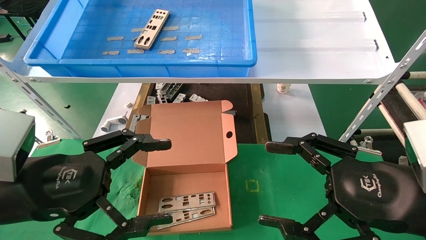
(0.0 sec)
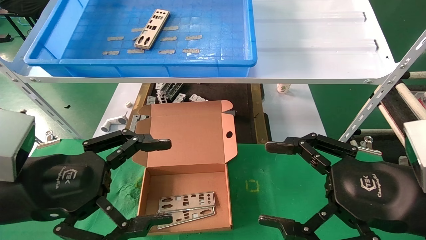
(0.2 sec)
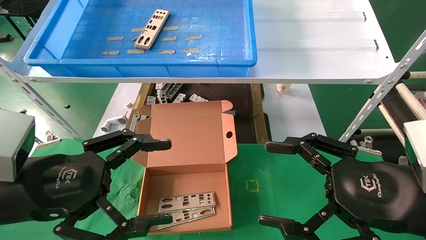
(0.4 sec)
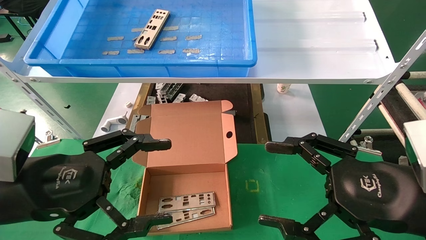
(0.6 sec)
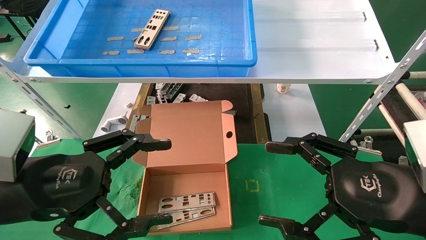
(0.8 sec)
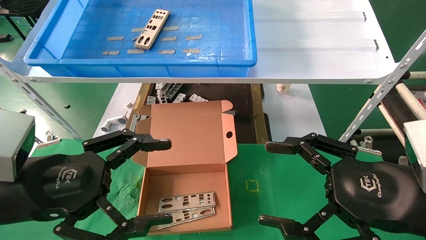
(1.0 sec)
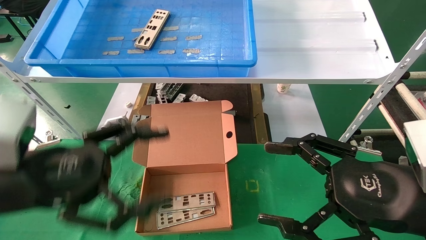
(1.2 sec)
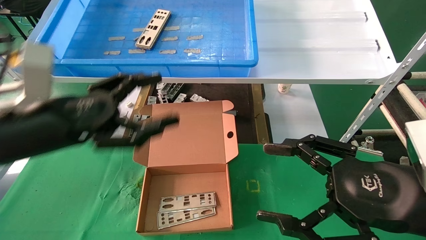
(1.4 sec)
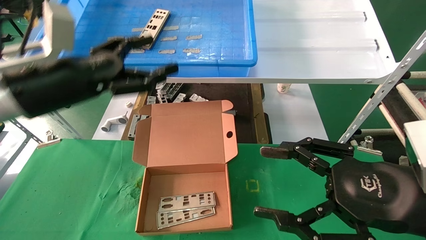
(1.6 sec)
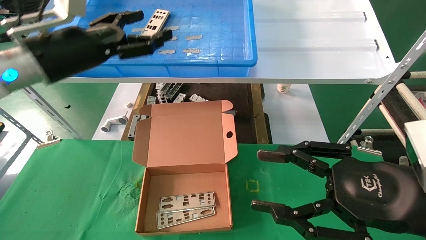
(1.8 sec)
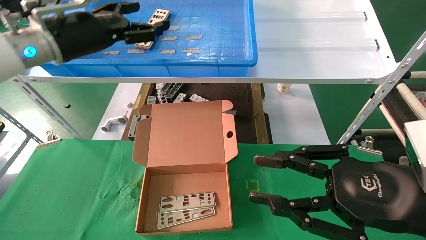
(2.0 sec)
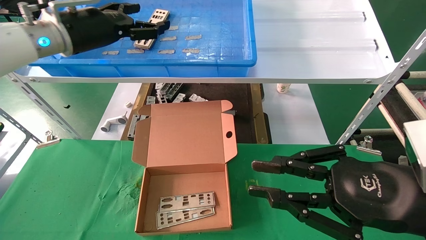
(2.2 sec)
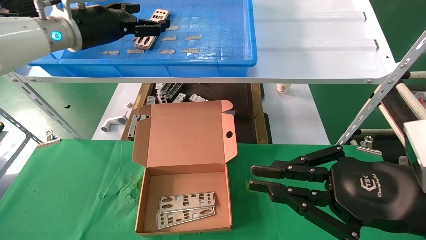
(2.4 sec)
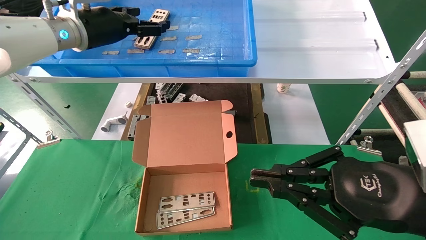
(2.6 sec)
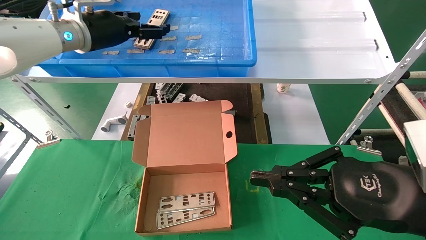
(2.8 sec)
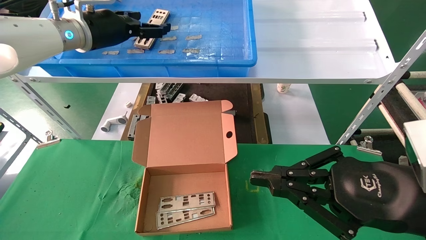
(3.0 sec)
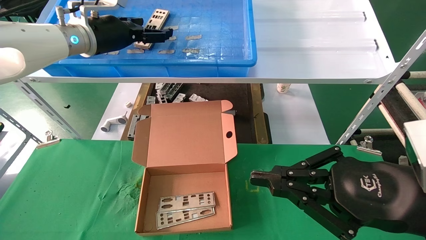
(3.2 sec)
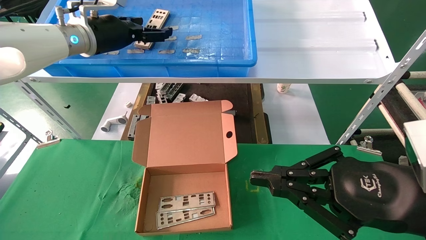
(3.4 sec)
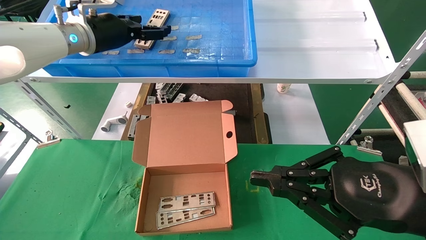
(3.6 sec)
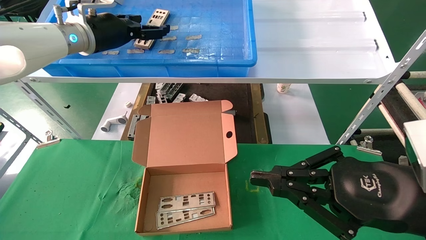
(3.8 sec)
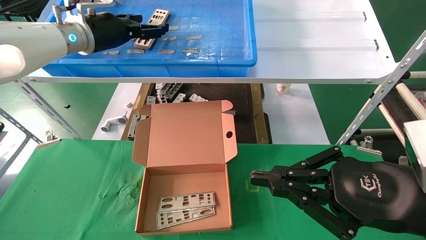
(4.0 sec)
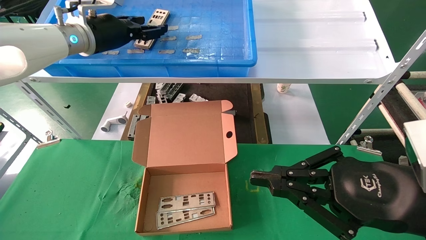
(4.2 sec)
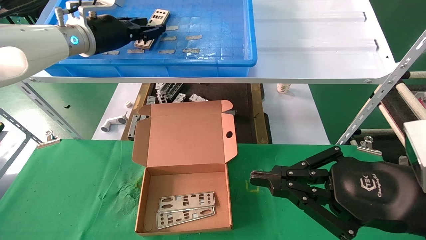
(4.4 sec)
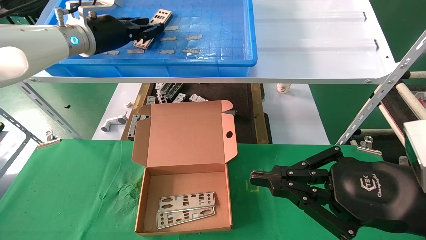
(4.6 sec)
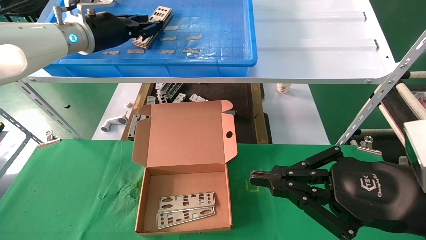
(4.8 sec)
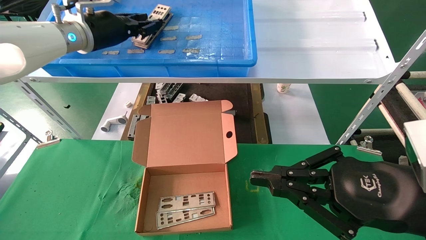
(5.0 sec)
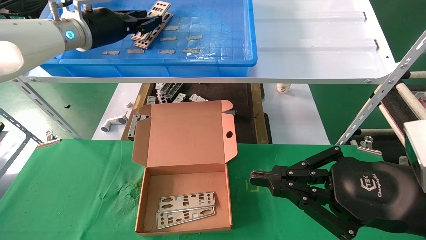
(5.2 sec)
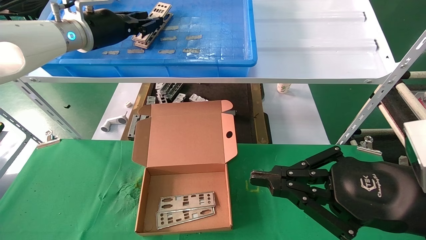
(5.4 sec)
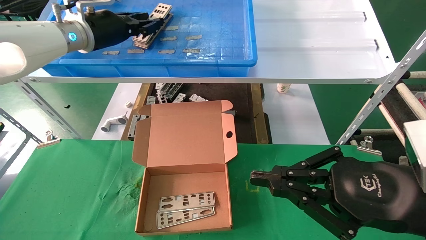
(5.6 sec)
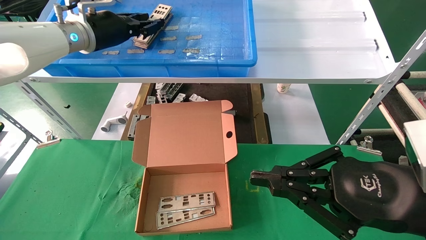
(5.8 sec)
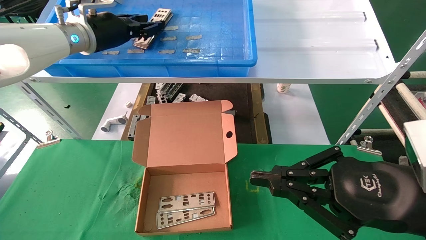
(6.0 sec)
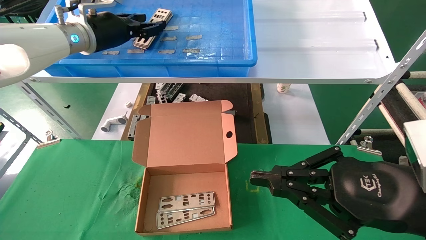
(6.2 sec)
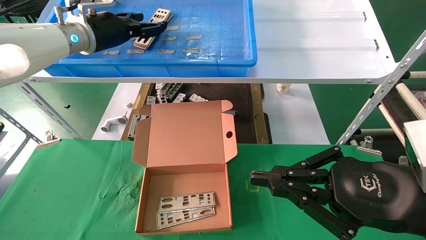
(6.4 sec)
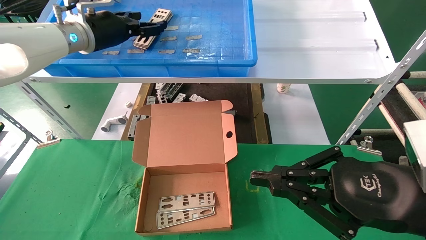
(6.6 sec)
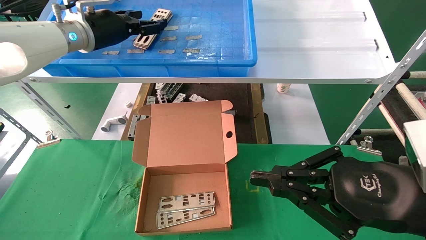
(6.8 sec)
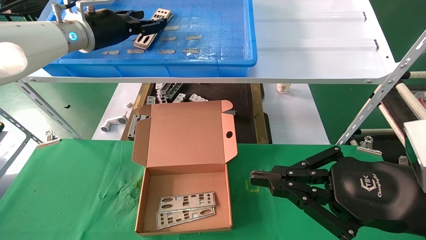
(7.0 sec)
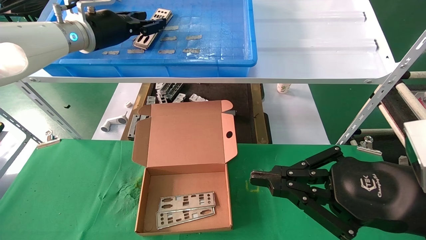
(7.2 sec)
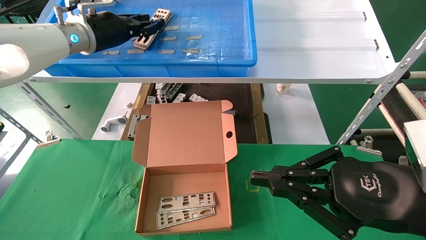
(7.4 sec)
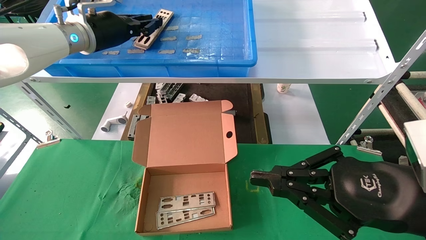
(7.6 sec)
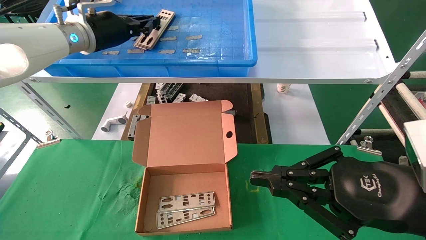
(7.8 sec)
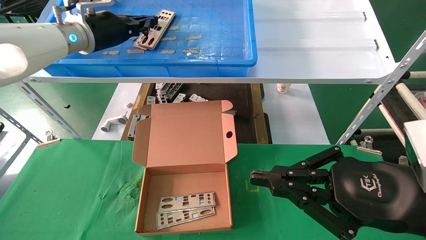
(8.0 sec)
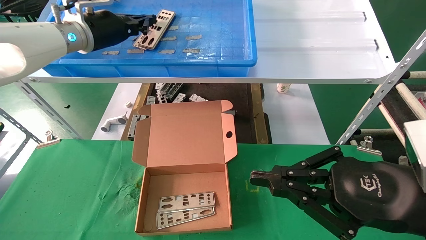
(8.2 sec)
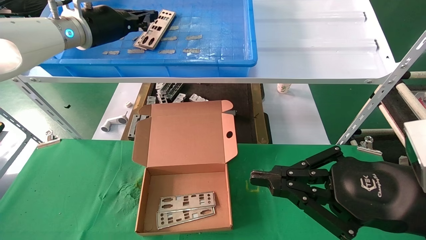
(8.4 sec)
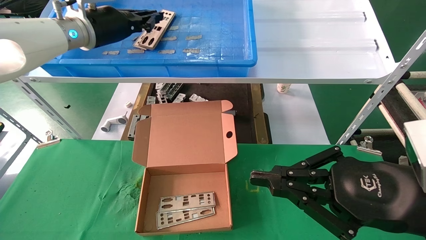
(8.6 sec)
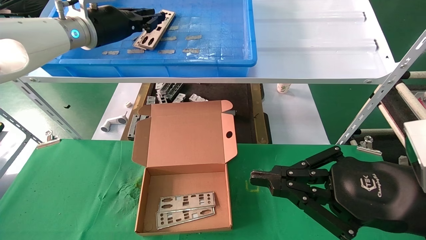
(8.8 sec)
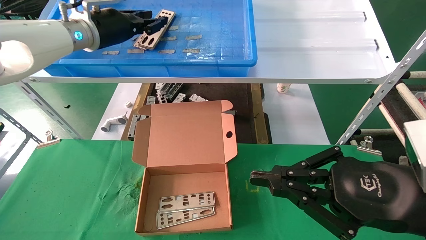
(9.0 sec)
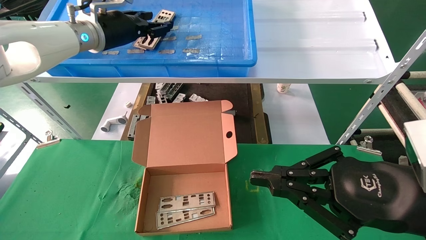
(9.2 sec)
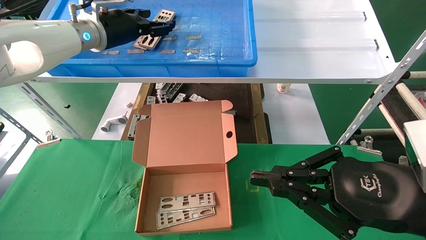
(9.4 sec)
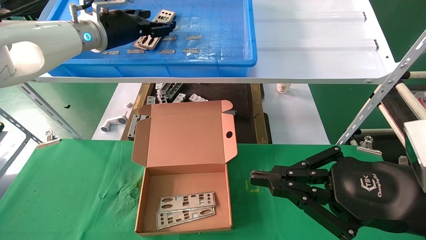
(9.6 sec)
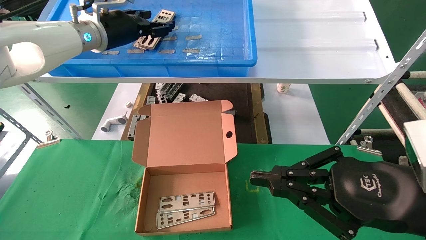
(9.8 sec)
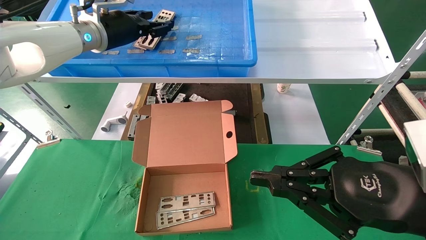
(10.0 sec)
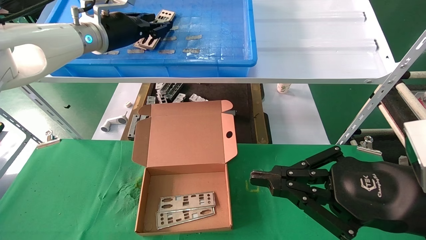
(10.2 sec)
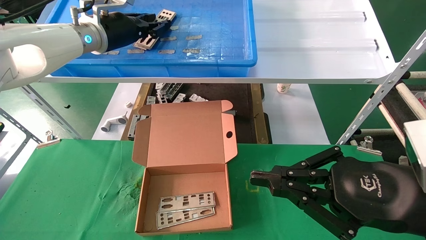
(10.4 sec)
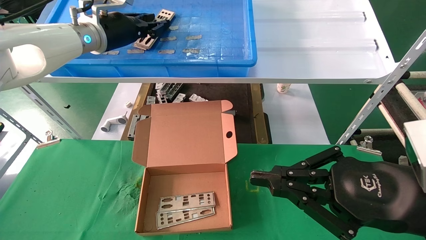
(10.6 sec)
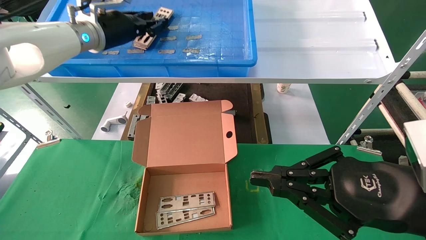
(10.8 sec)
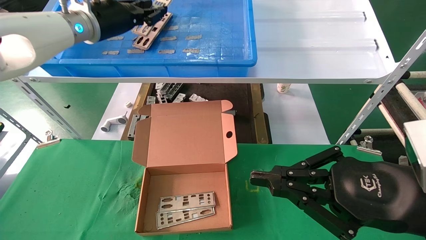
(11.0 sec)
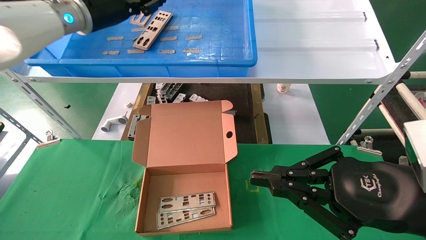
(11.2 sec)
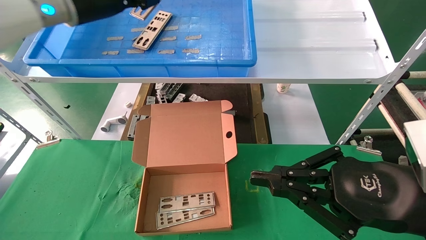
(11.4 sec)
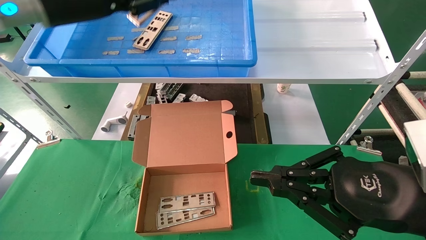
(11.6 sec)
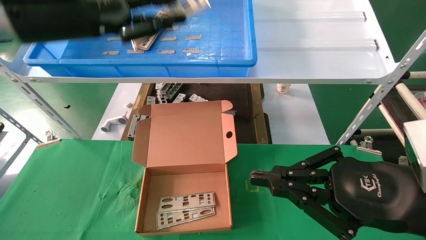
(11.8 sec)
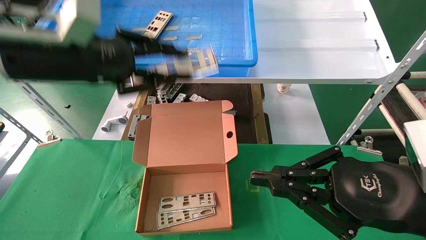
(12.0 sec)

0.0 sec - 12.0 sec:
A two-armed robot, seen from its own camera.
Task of the whole recording: pick up the parts on the tray and put them in the cardboard box.
Step, 1.4 sec - 11.0 sec: Pick up the IO bracket from the container box.
0.0 sec - 1.6 sec: The left gripper moves forward and upward, approximately 15 cm.
1.6 sec - 3.0 sec: The left gripper goes approximately 15 cm forward and upward; the right gripper closes.
3.0 sec - 4.4 sec: The left gripper closes.
4.4 sec - 6.0 sec: Neither gripper changes place.
6.0 sec - 7.6 sec: The left gripper opens, then closes once more.
7.6 sec - 9.0 sec: Both grippers stay about where they are.
9.0 sec - 10.4 sec: Neither gripper changes place.
10.4 sec - 12.0 sec: The left gripper moves backward, approximately 15 cm.

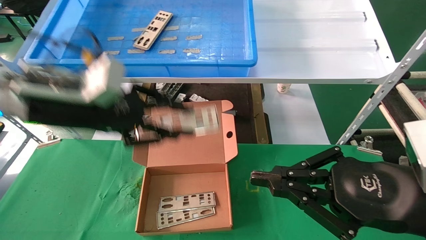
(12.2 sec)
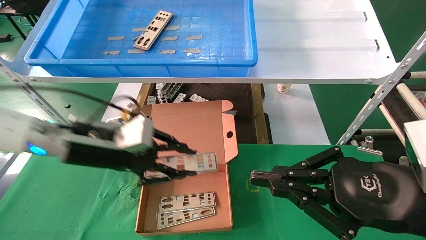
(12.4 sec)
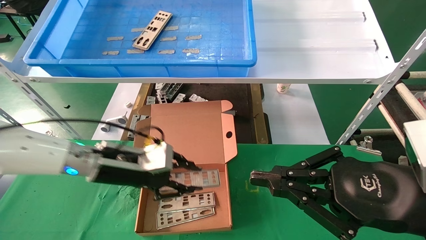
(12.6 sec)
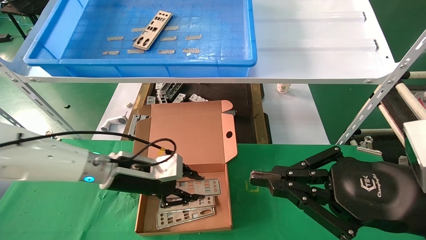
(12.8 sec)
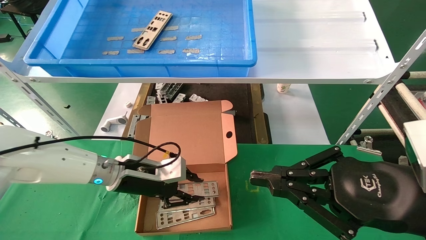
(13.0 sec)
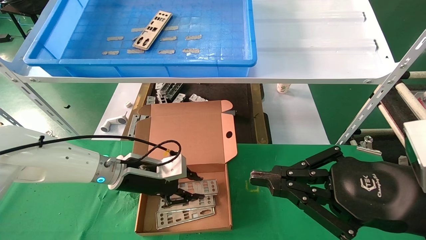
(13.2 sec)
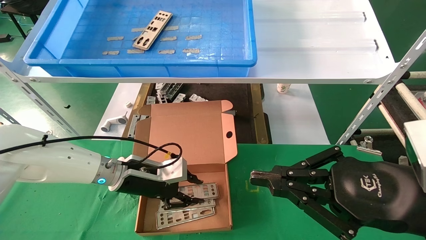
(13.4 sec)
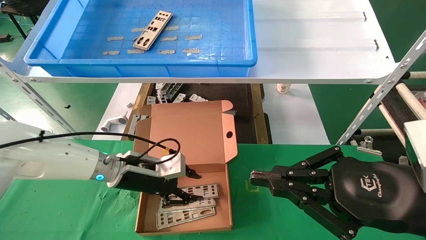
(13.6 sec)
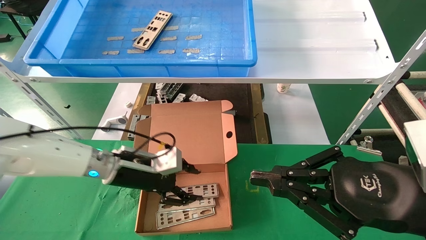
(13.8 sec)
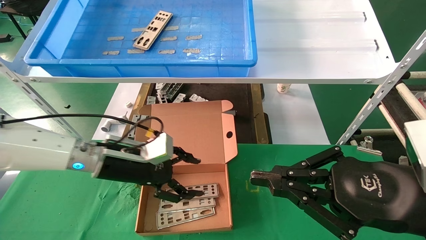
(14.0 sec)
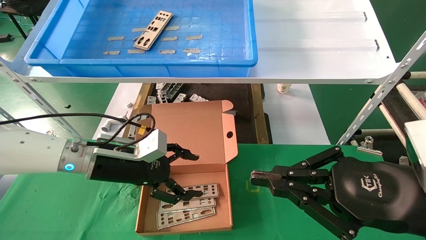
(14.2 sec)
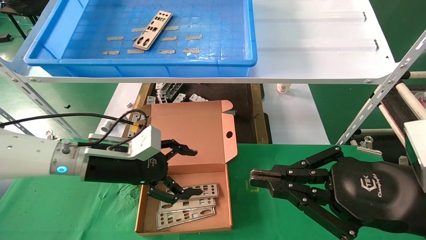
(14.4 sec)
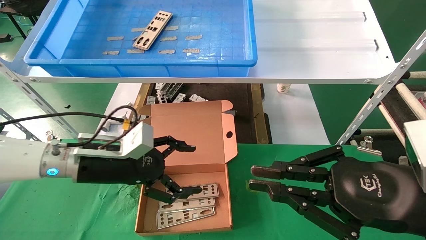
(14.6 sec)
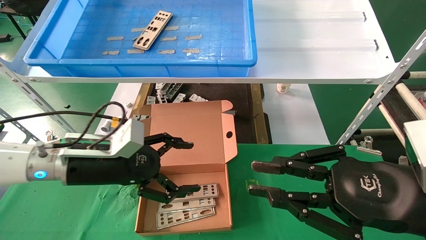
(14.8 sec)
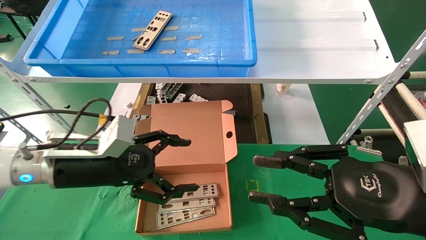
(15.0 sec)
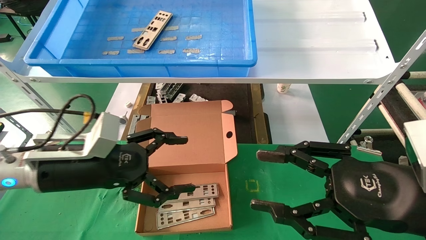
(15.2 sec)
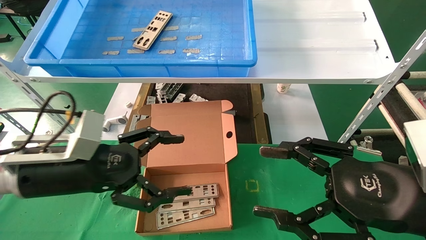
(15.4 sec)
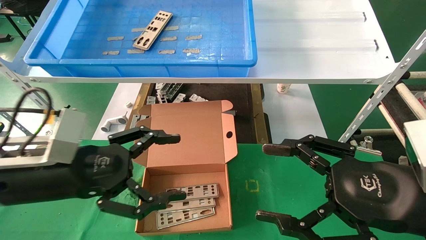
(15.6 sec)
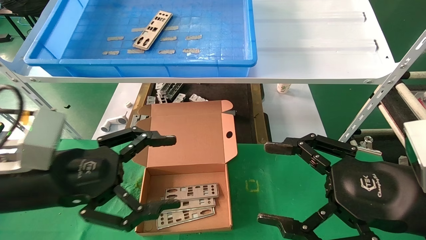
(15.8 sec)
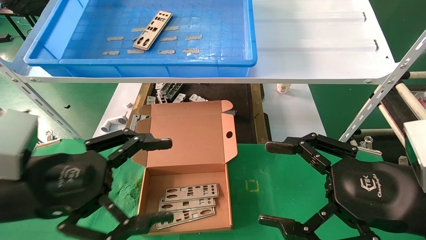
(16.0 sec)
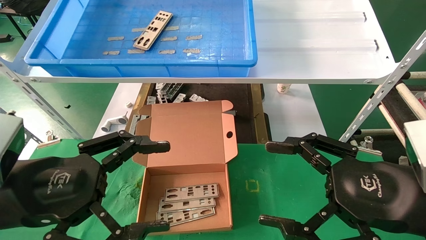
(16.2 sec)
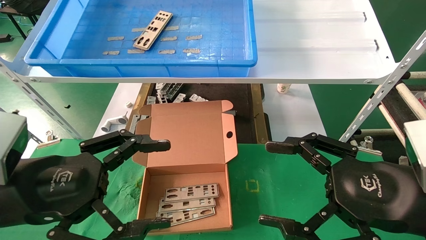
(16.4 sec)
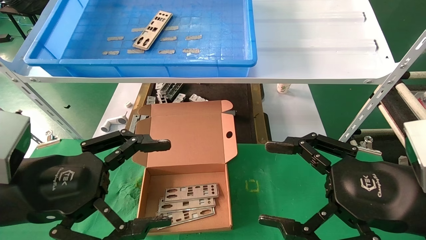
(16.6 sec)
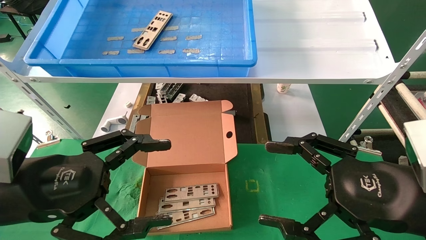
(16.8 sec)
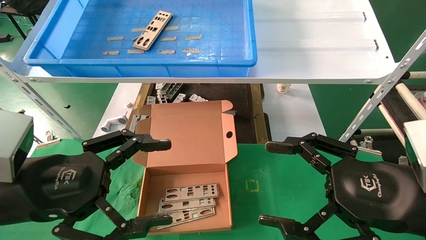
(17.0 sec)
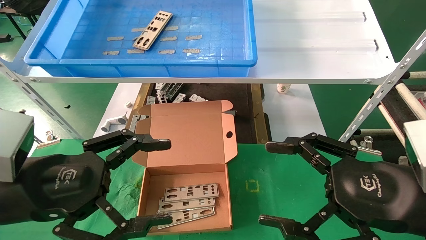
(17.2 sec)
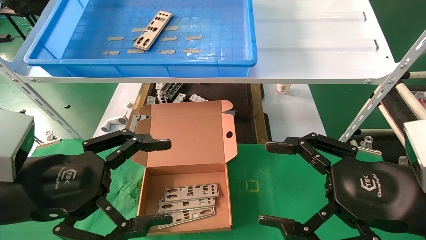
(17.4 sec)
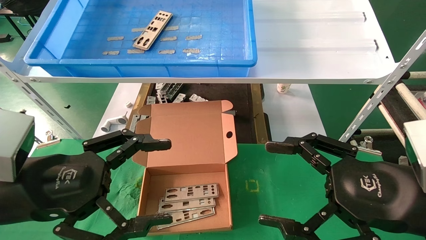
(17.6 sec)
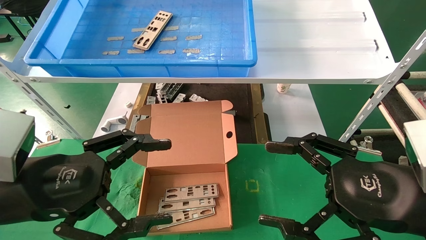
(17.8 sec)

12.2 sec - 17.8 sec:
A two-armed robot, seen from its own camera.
Task of the whole recording: pick up the parts on the tray and put them in the cardboard box.
Step, 12.2 sec - 13.8 sec: Place the IO bracket into the ingredient slot.
12.2 sec - 13.6 sec: The left gripper moves downward and forward, some 20 cm.
13.6 sec - 15.0 sec: The left gripper moves backward and upward, about 10 cm, and opens its fingers.
15.0 sec - 16.4 sec: The left gripper is displaced backward by some 10 cm; the right gripper opens its fingers.
16.4 sec - 17.8 sec: Both grippers stay put.
